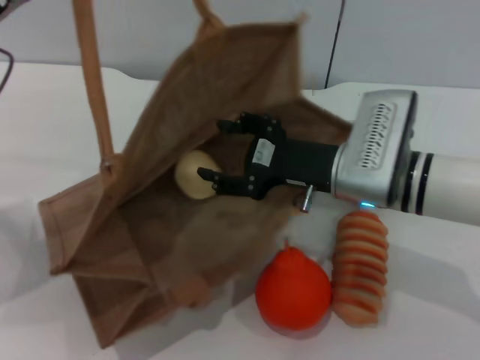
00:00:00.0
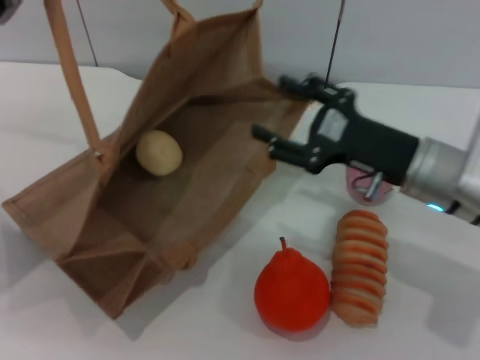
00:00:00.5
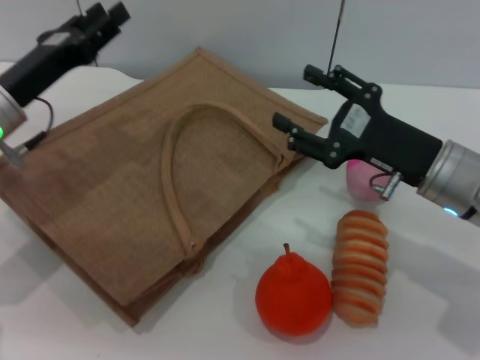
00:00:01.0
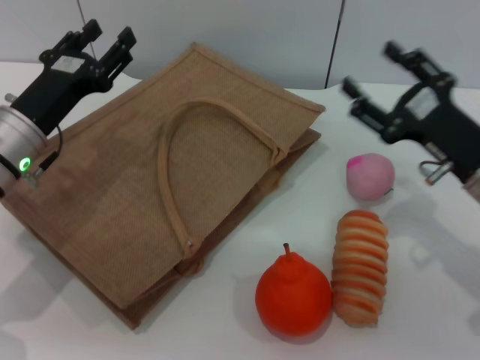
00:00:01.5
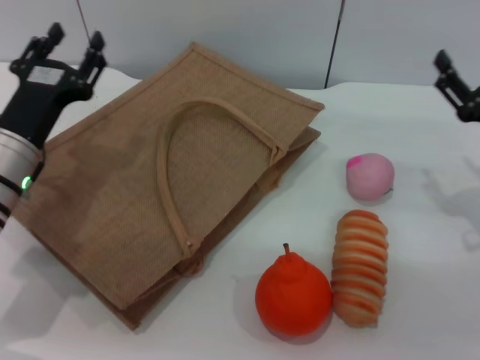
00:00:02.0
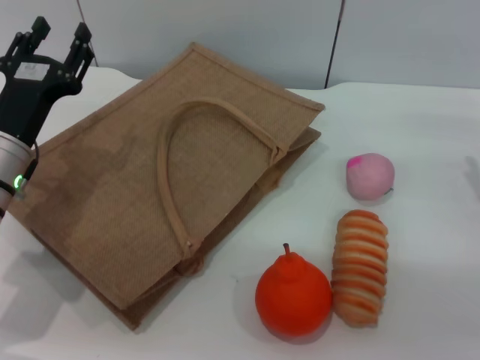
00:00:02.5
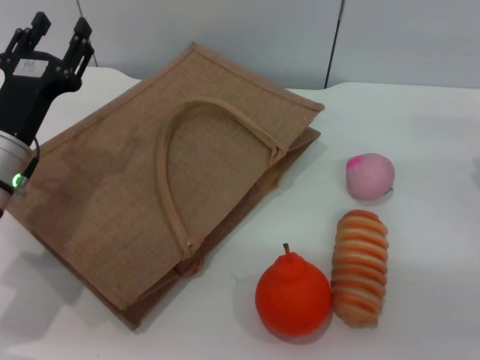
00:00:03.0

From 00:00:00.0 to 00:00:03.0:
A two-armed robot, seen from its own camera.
Task of the whole recording: pick up the egg yolk pastry from the table and place it in the brown handbag.
Step, from 00:00:01.0 to 00:00:02.0: Lower the woven bag with the left gripper to close it.
From 00:00:00.0 to 00:00:01.5: The left gripper goes approximately 10 cm downward, and opens its fingers. Meanwhile the right gripper shifts some 10 cm to the right.
From 00:00:01.5 to 00:00:03.0: The right gripper goes roughly 5 cm to the right.
